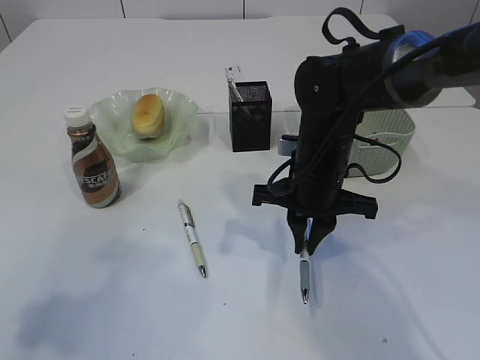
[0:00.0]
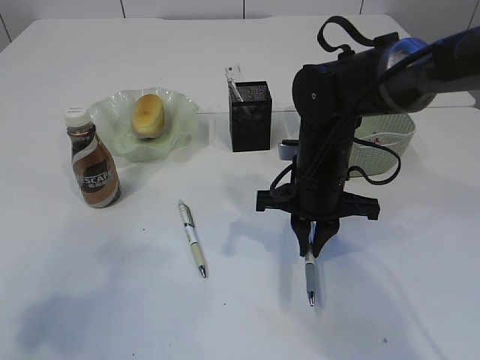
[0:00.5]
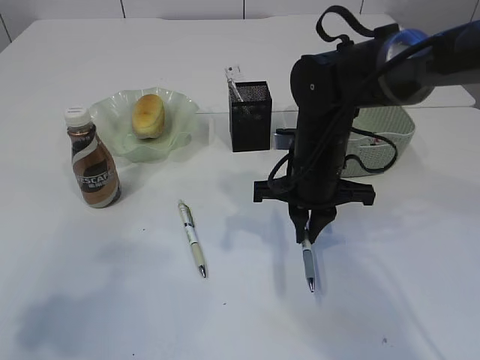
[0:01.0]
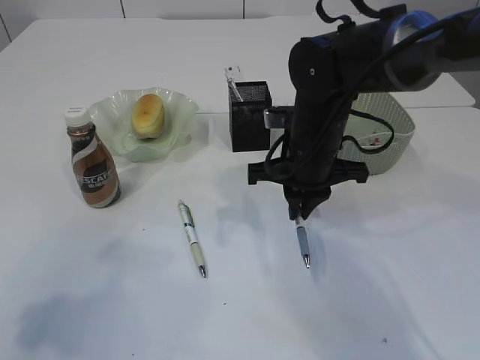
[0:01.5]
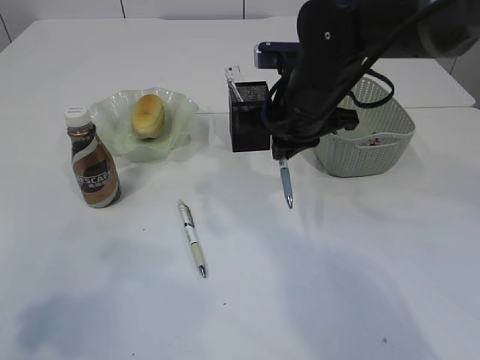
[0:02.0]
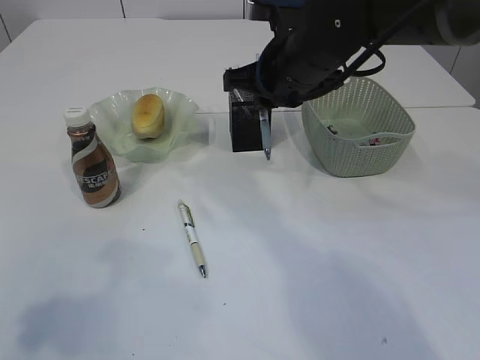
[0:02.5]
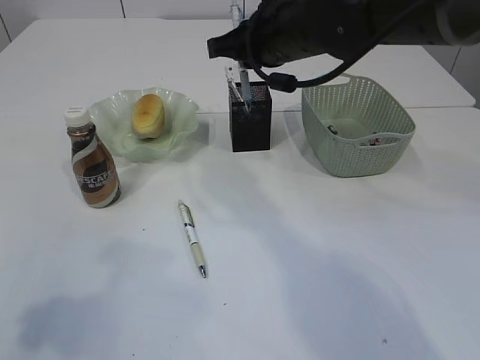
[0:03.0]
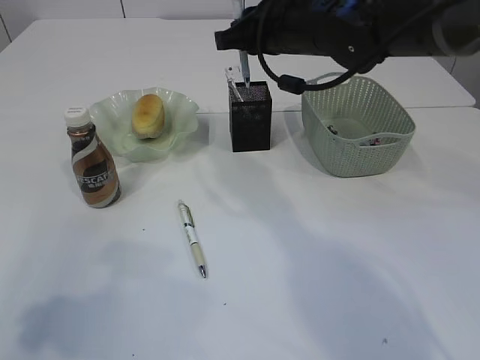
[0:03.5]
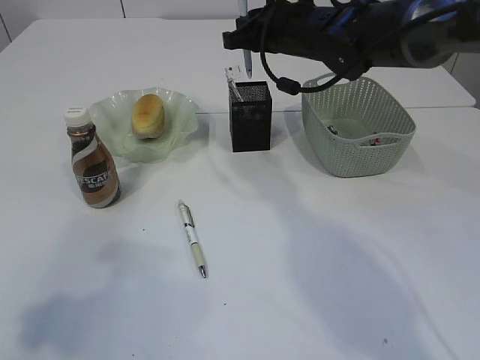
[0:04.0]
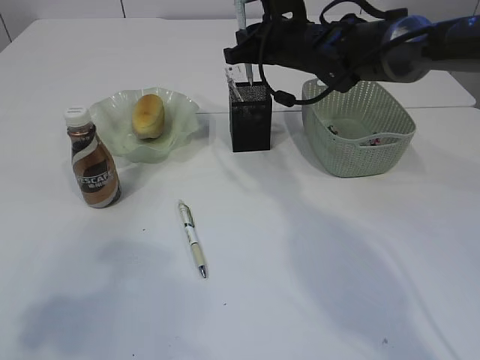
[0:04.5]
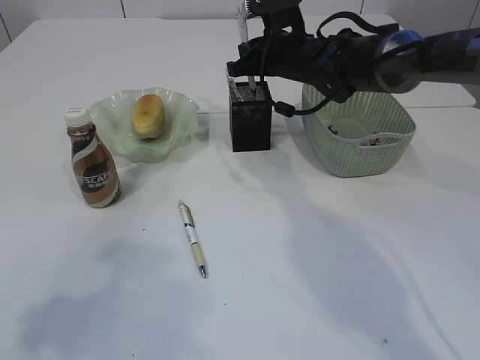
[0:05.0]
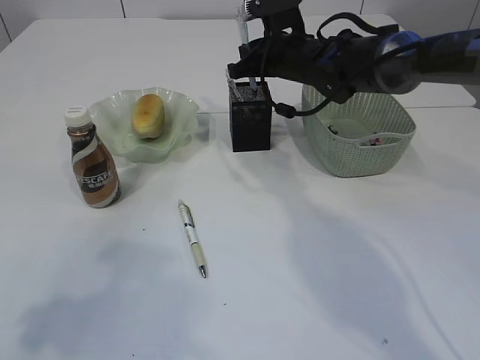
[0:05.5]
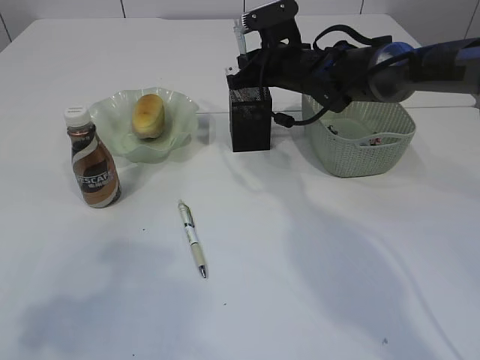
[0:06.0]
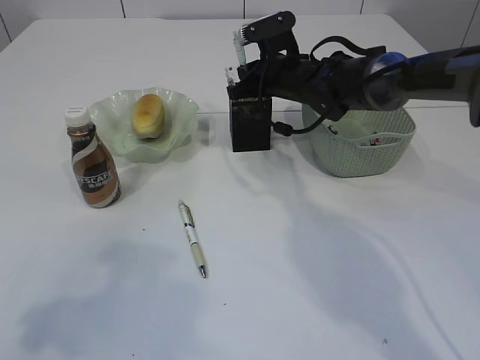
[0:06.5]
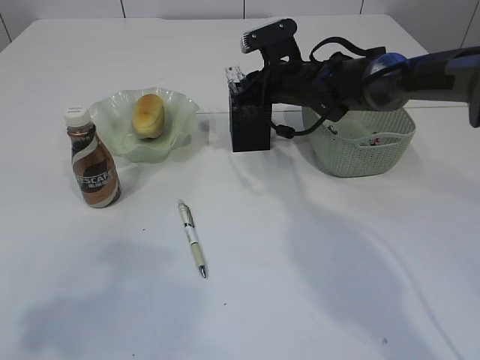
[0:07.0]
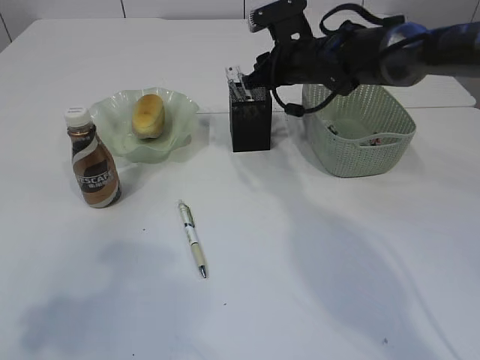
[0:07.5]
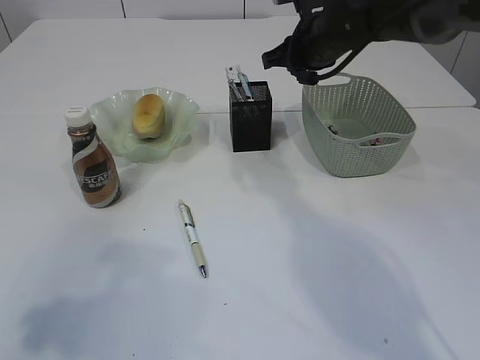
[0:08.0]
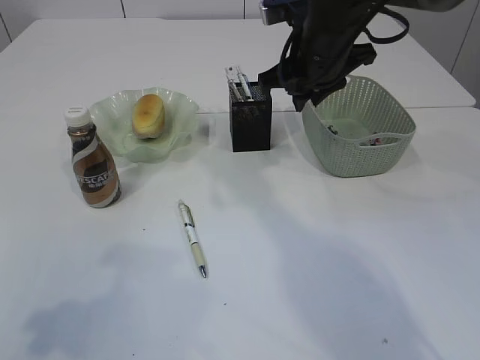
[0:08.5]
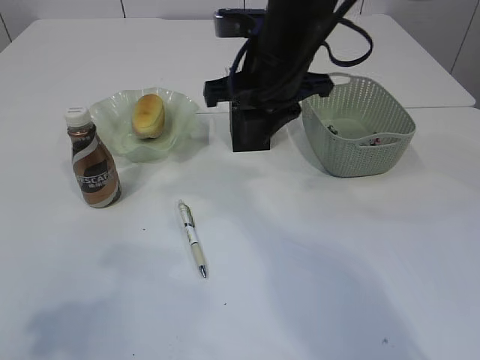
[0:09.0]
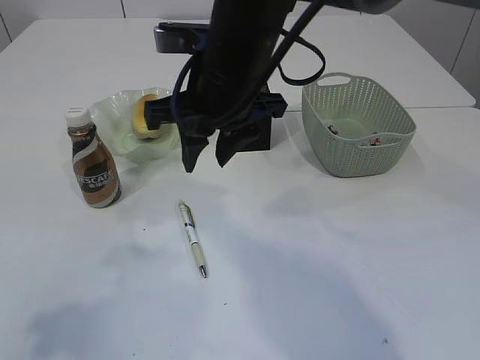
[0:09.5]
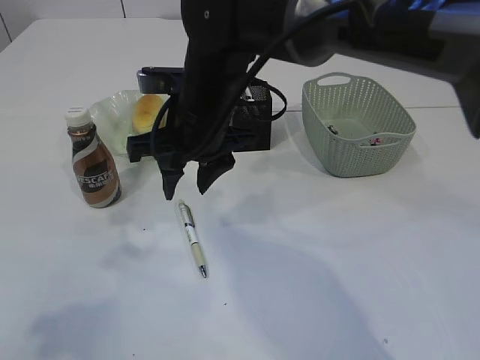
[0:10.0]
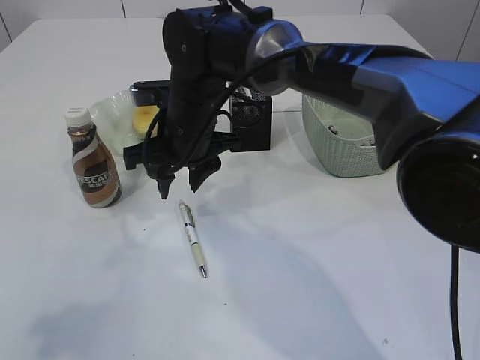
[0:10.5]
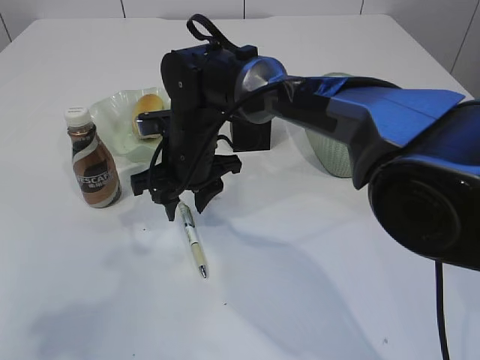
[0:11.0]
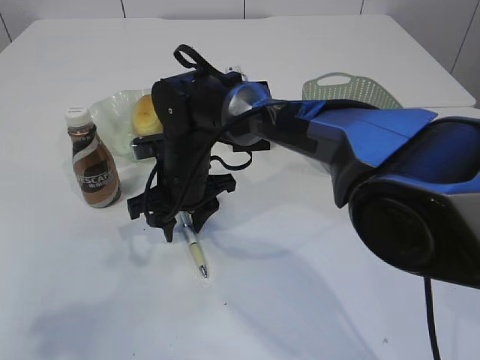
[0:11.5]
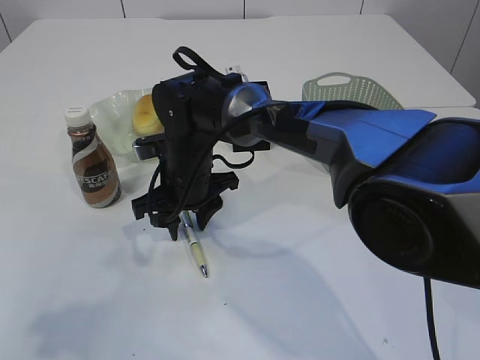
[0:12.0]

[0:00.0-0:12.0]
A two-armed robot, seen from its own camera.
Step, 0:01.5 to 0:08.0: Place the pen into the pen holder.
0:00.0 to 0:02.0: The right gripper shifts approximately 5 cm upward.
0:02.0 to 0:04.0: The right gripper shifts about 10 cm forward.
0:04.0 to 0:06.0: The right gripper goes about 5 cm downward.
0:06.0 to 0:08.0: The right gripper moves about 5 cm.
0:08.0 to 0:10.0: The right gripper heads to the left and backward, covering about 20 cm.
0:10.0 to 0:12.0: The right gripper heads downward, covering some 10 cm.

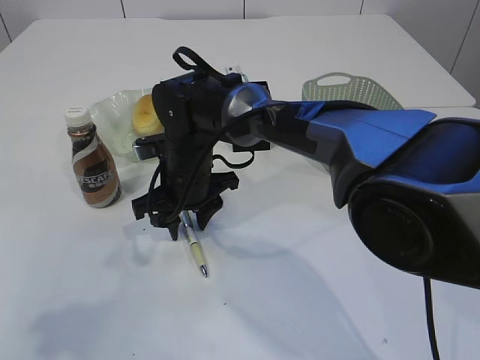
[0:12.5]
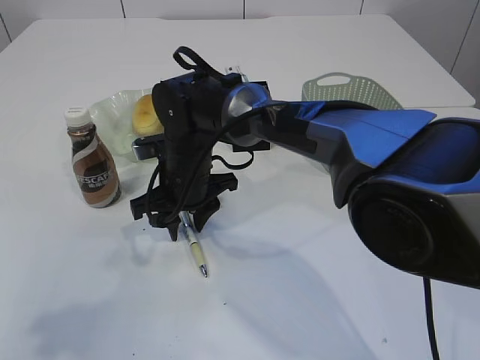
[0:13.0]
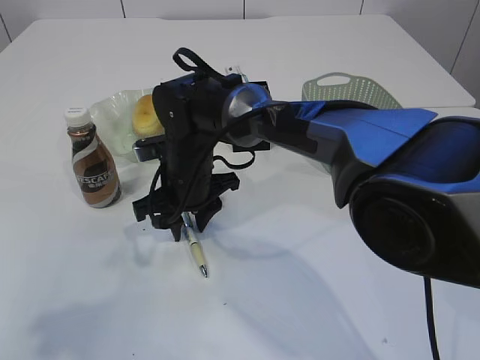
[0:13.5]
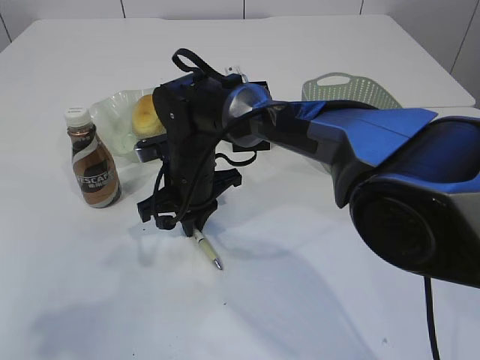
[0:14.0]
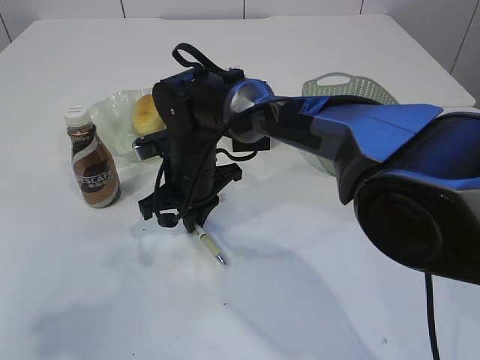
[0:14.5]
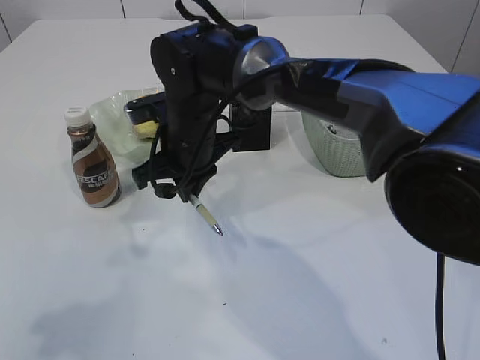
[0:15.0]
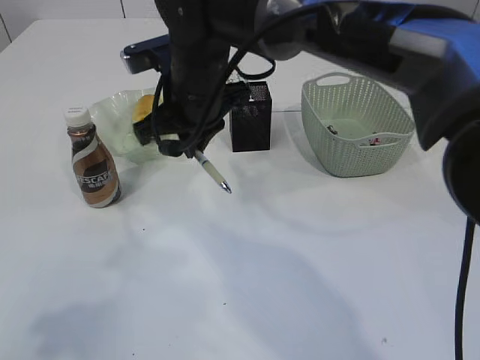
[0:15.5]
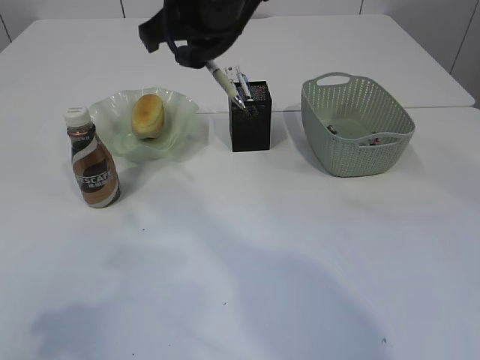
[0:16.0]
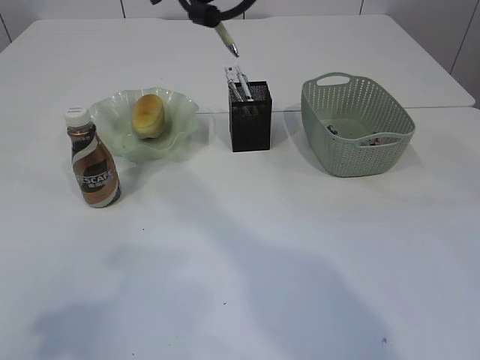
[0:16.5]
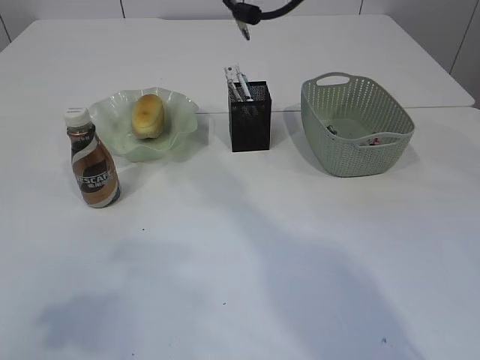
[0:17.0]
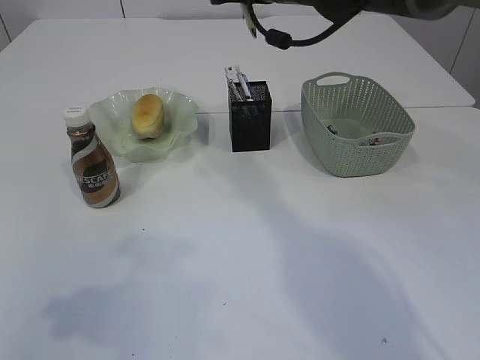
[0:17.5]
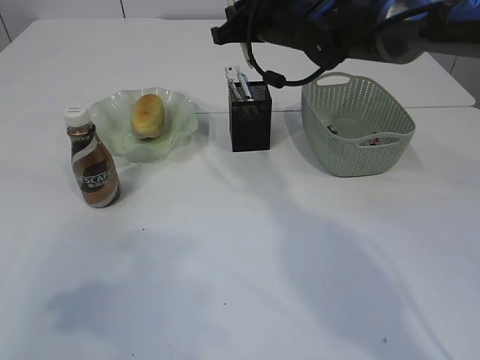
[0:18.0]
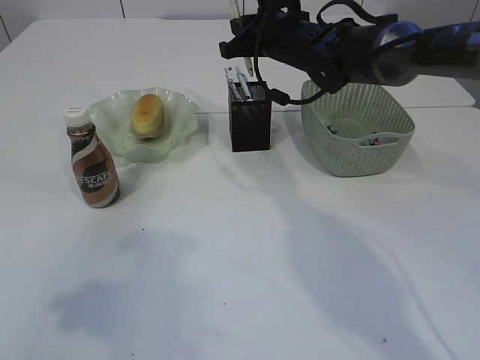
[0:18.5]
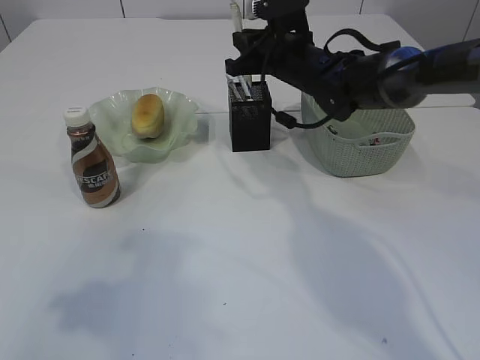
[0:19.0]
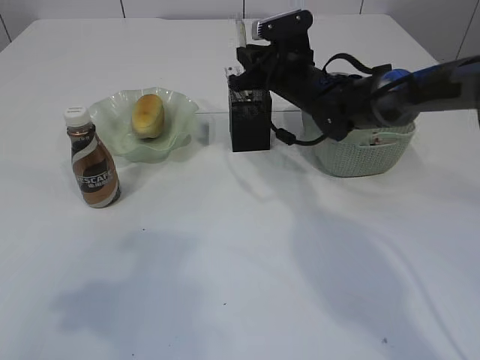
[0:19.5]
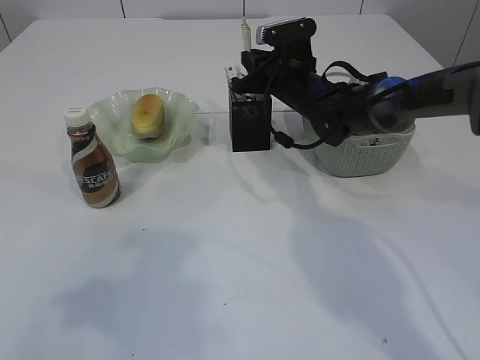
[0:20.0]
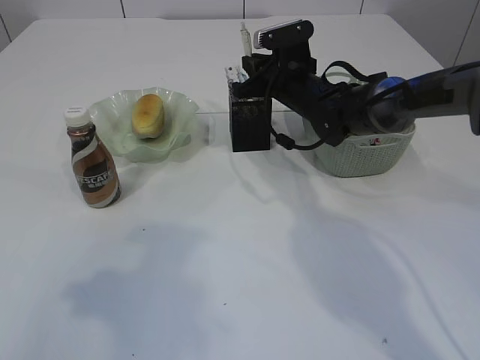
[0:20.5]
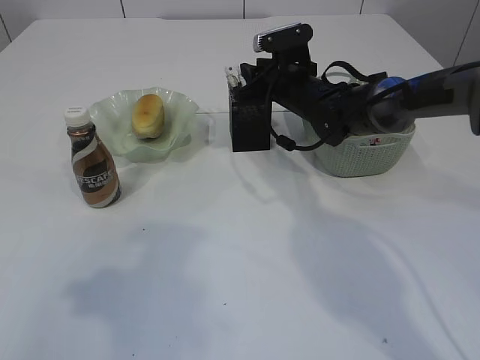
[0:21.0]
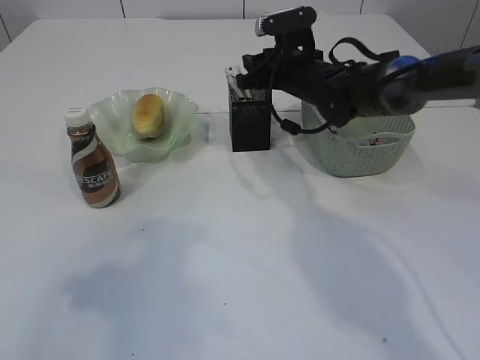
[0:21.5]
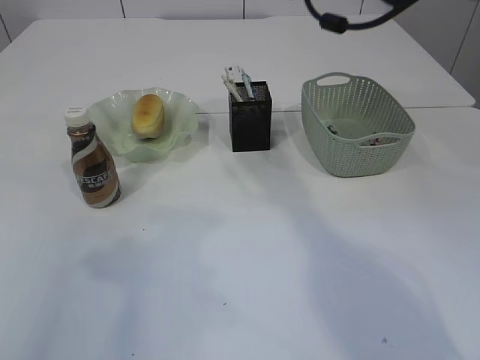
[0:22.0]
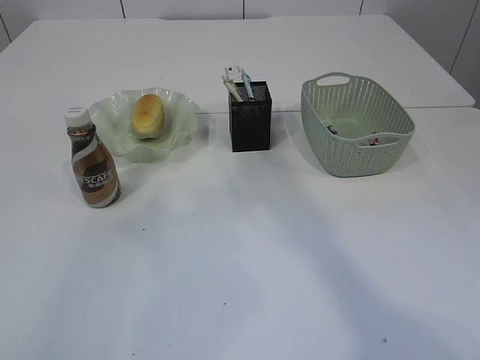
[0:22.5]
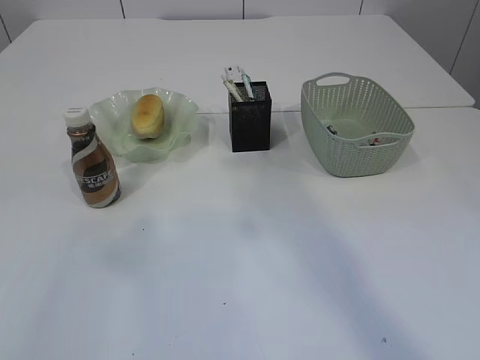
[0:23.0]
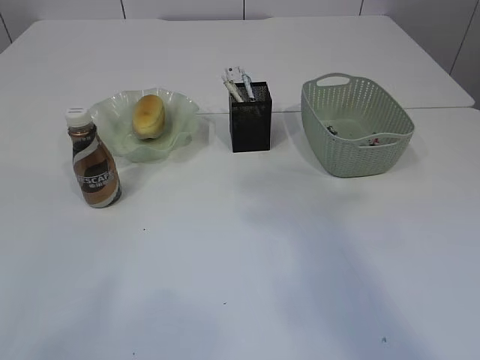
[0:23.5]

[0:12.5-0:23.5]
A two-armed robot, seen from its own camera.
Step, 0:12.5 to 0:15.0: Pick up the pen with right arm.
Step, 0:15.5 to 0:21.5: Place the pen into the pen holder.
0:12.5 to 0:14.5: The right gripper closes.
0:14.5 to 0:16.0: The right gripper heads upward, covering about 20 cm.
0:16.0 to 0:18.0: The right gripper is displaced forward, to the right and downward by about 15 cm.
0:18.0 to 0:20.0: The right gripper moves downward, approximately 10 cm.
0:20.0 to 0:21.5: The right gripper opens up.
0:21.5 to 0:23.5: The left gripper is displaced backward and upward by some 20 cm, while the right gripper travels backward and upward by approximately 50 cm.

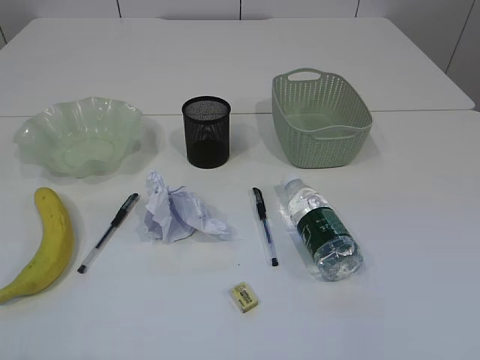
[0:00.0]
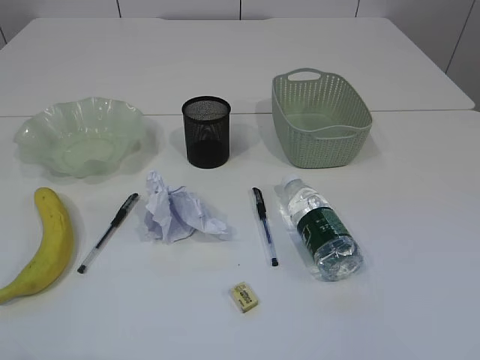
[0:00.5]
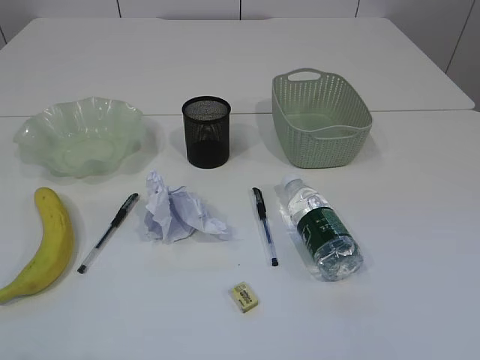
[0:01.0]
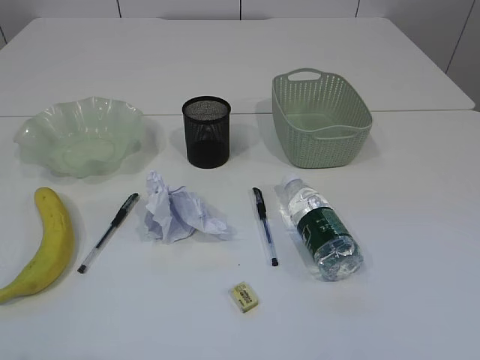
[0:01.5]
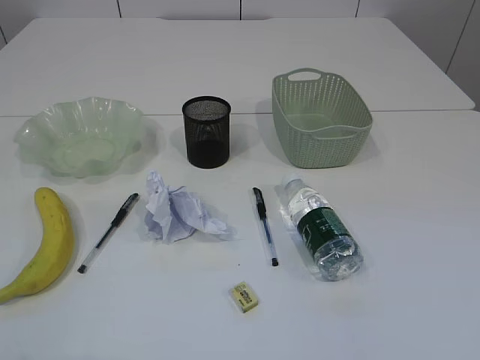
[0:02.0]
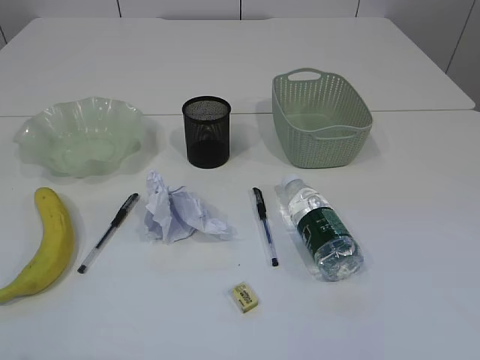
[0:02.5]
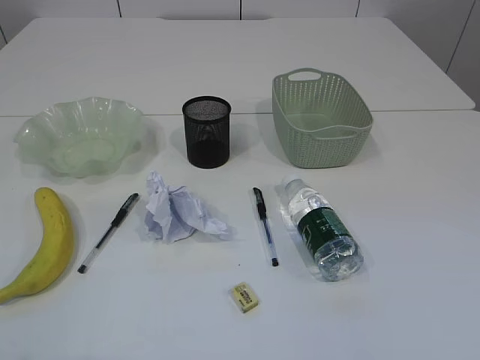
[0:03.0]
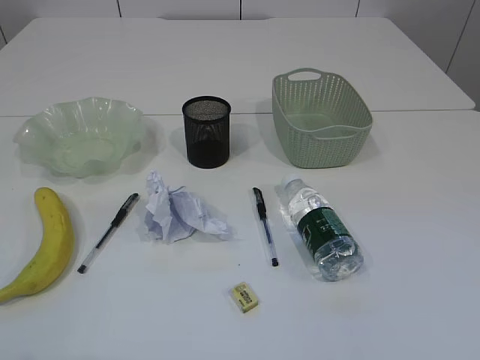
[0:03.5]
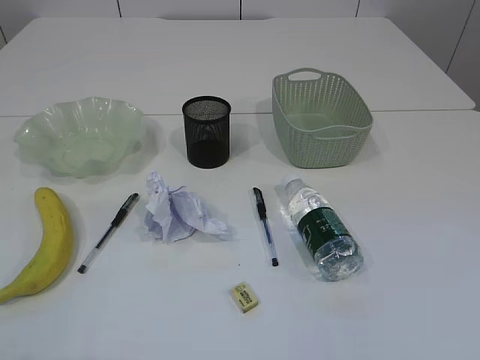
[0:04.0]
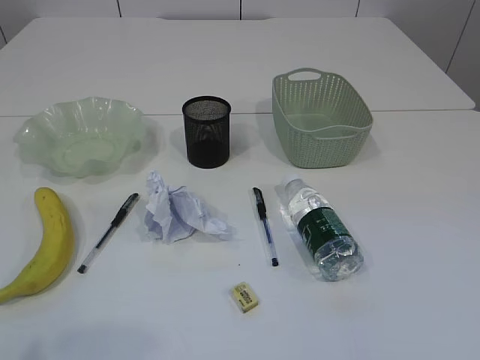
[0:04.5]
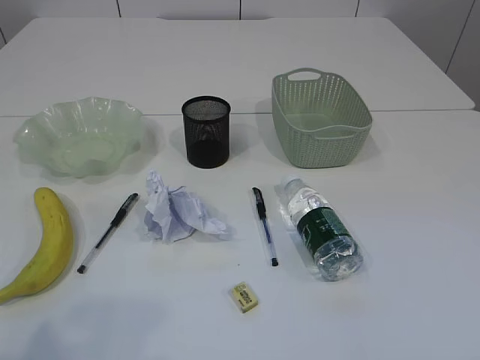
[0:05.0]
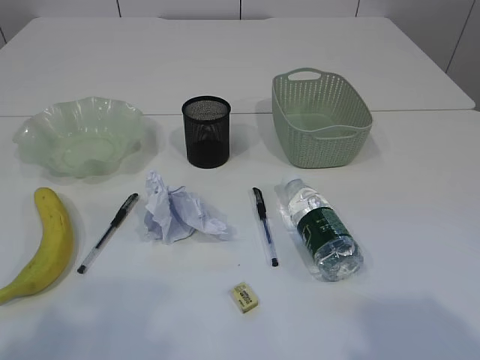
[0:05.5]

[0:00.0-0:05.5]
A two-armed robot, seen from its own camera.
0:02.0 to 0:03.5: Both grippers stay put.
0:03.5 to 0:05.5: Both grippers travel together forward, approximately 5 cm.